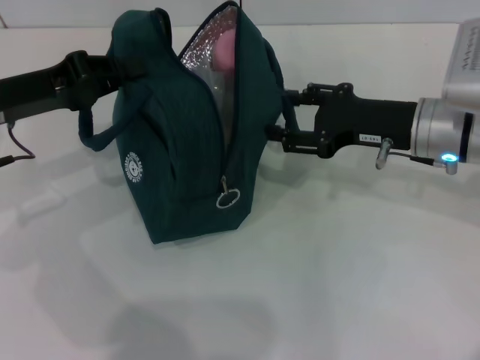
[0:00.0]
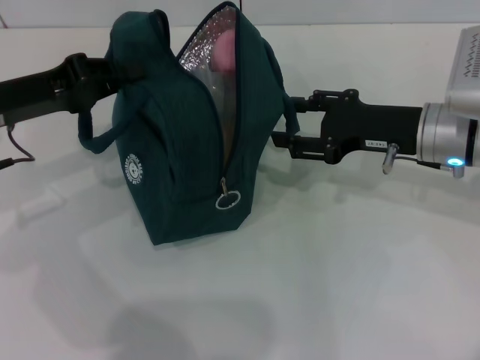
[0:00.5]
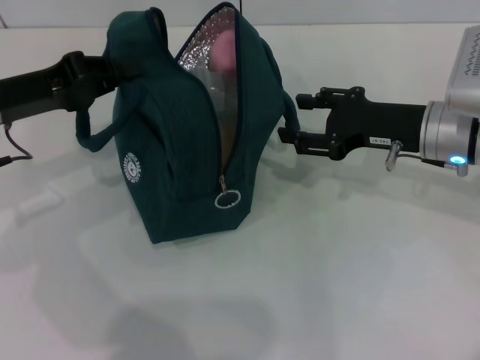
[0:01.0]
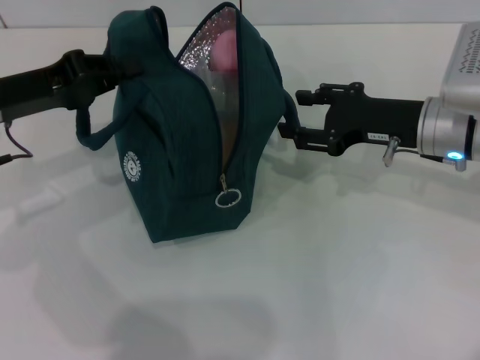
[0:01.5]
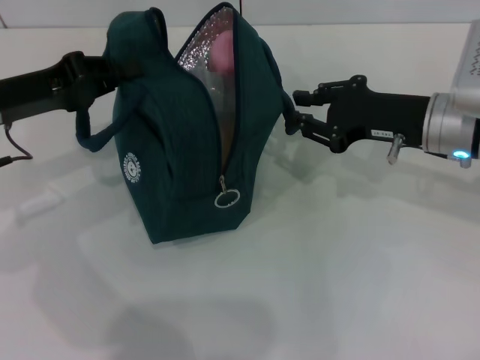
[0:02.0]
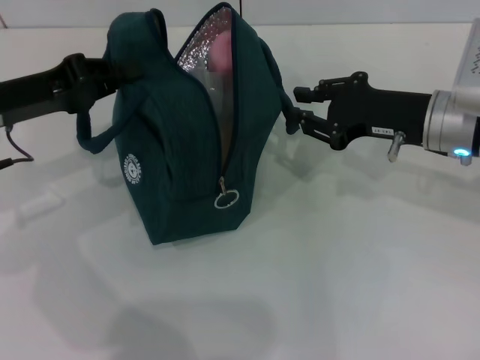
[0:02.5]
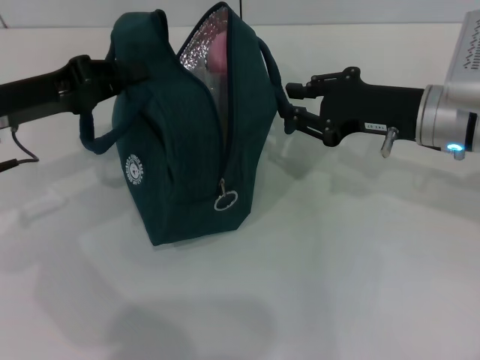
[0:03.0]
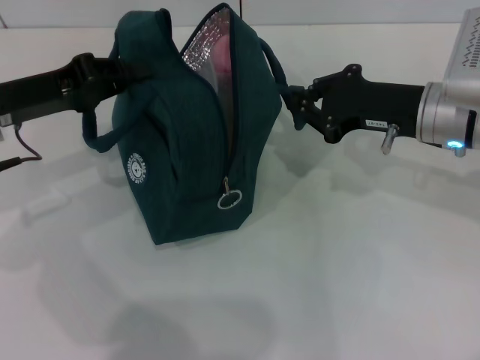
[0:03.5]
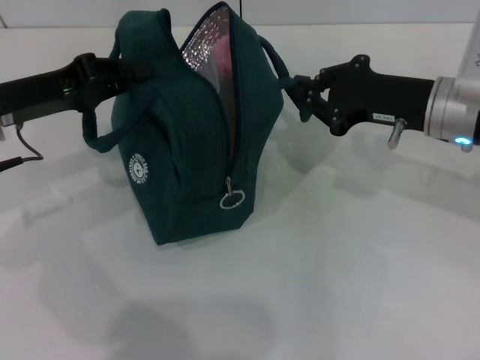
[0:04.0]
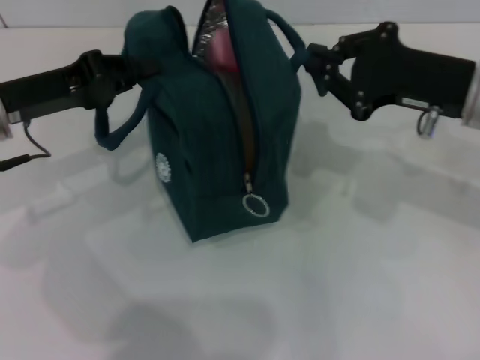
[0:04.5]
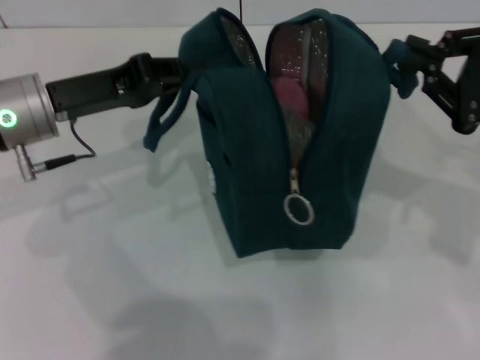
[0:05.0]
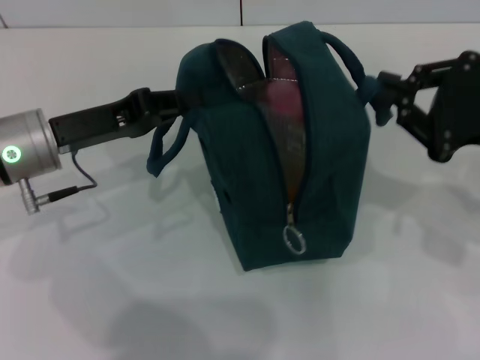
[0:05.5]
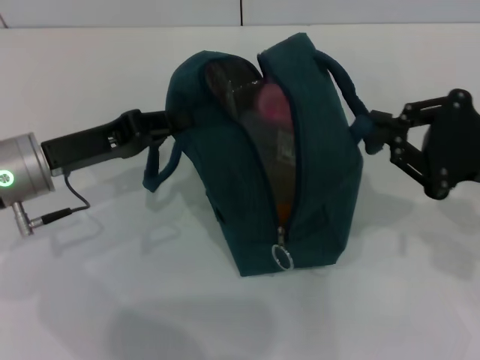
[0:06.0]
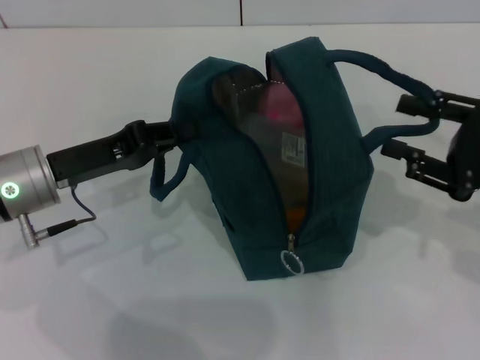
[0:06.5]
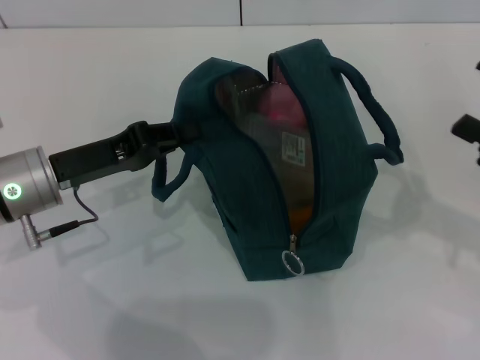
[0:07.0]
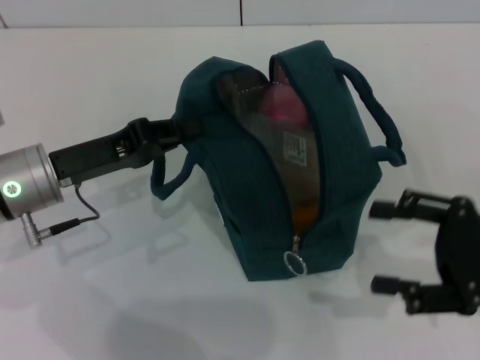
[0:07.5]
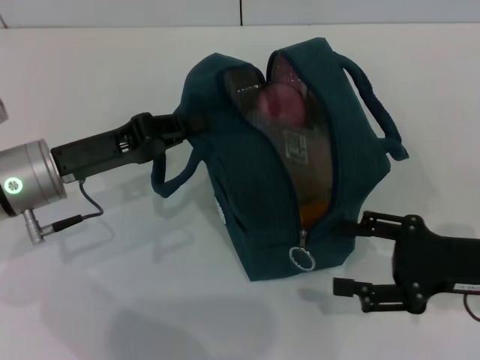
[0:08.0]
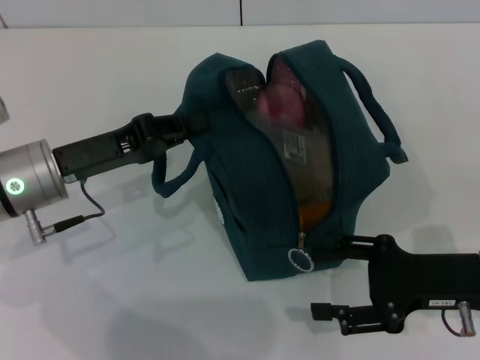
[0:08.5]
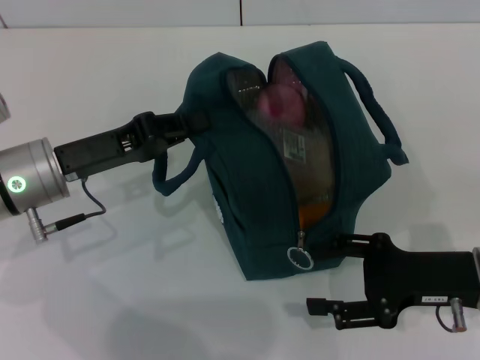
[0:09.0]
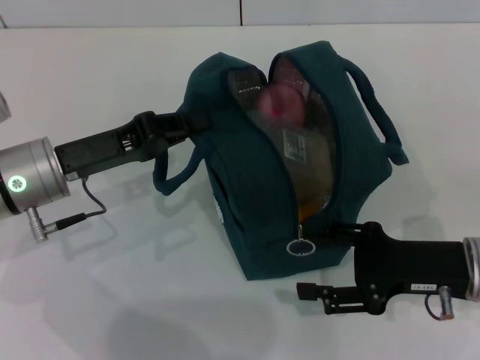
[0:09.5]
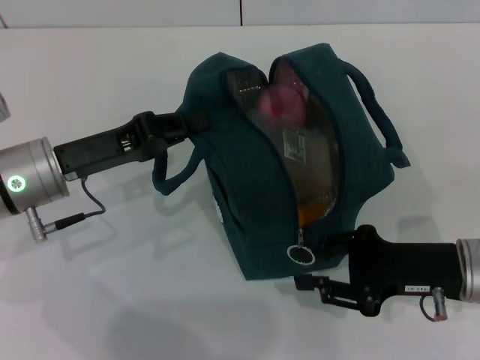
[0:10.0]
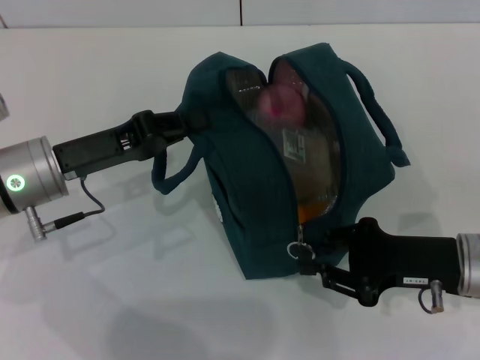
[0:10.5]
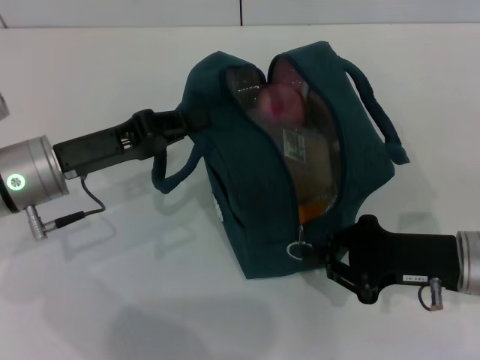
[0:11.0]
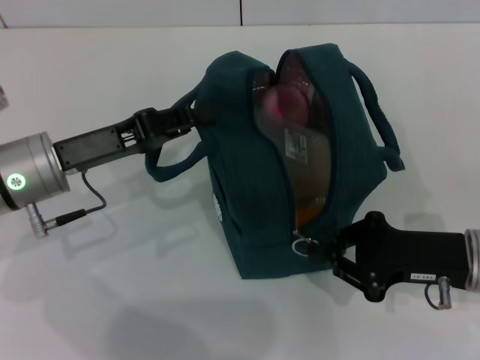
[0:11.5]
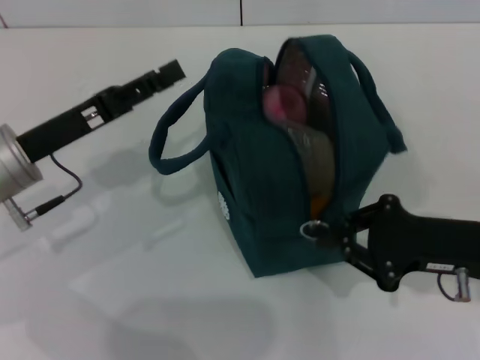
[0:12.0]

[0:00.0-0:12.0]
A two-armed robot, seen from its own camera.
Step, 0:00.0 to 0:06.5: Hold the lunch bag with your right hand.
0:00.0 to 0:02.0: The grippers stay close to where they were, moving slightly.
0:02.0 to 0:04.0: The right gripper closes up.
0:04.0 to 0:06.0: The left gripper changes place by roughly 5 cm, while the right gripper goes about 10 cm backward and to the right.
0:06.0 to 0:08.0: The right gripper moves downward, some 5 cm, and opens up.
0:08.0 to 0:10.0: The grippers stay close to where they were, moving slightly.
0:10.0 to 0:12.0: The right gripper closes up. The left gripper opens.

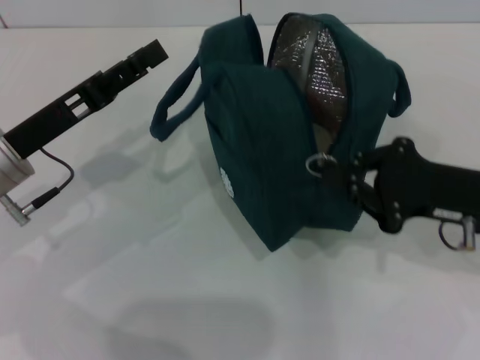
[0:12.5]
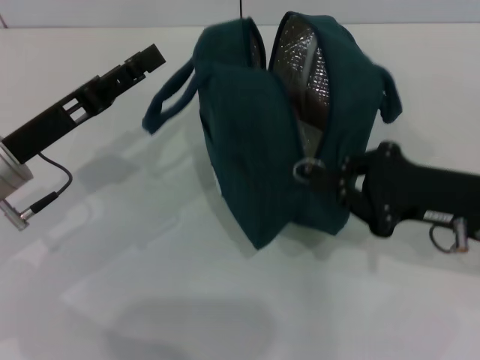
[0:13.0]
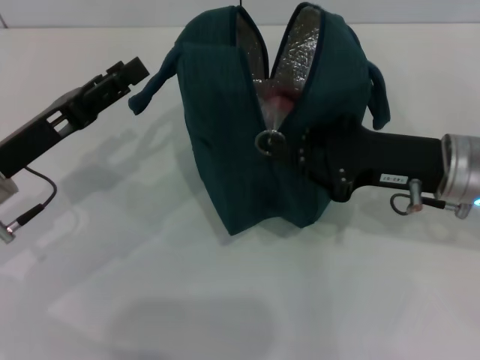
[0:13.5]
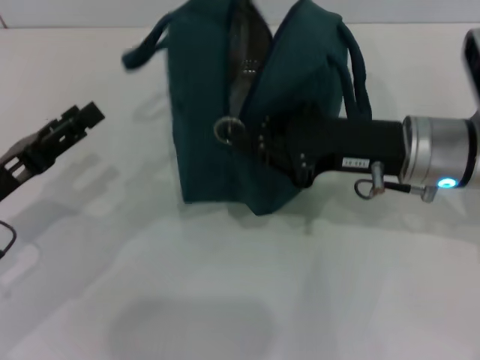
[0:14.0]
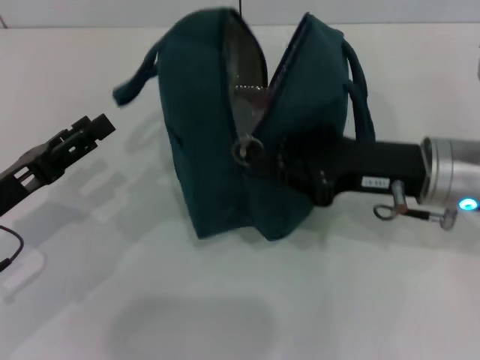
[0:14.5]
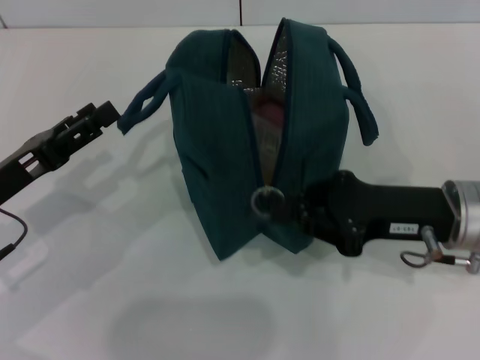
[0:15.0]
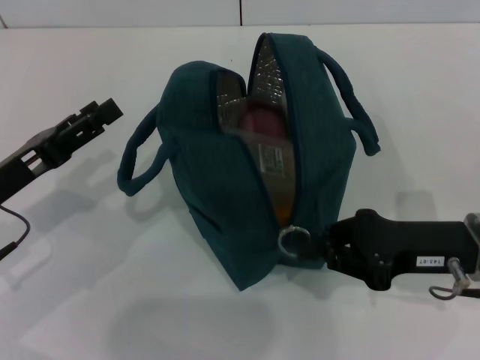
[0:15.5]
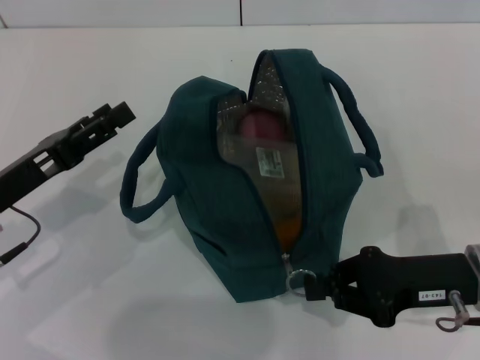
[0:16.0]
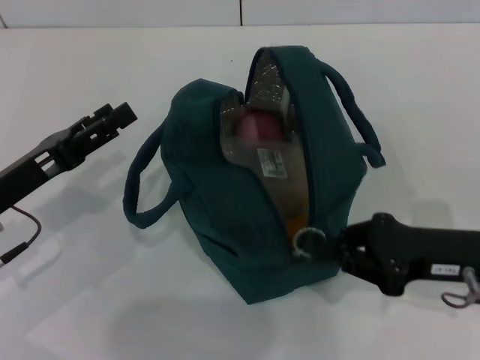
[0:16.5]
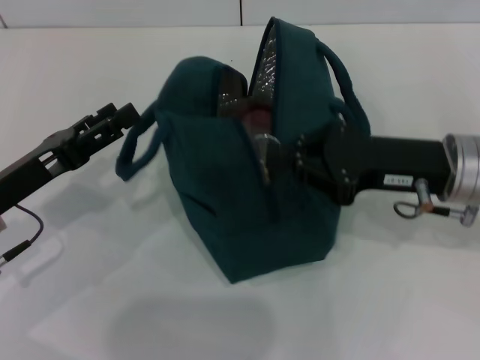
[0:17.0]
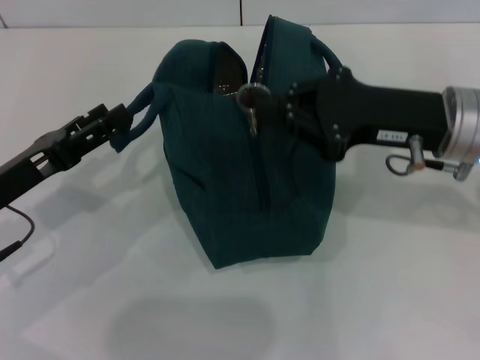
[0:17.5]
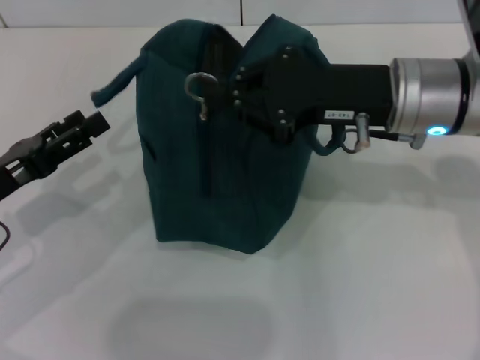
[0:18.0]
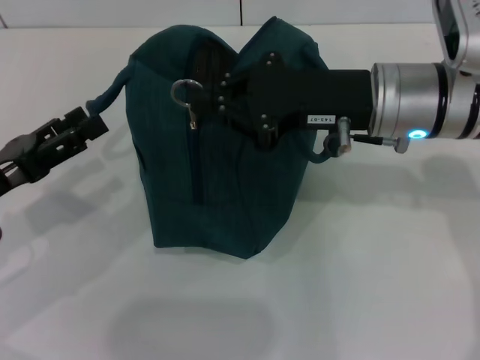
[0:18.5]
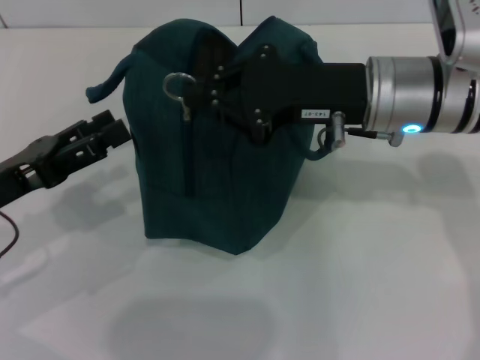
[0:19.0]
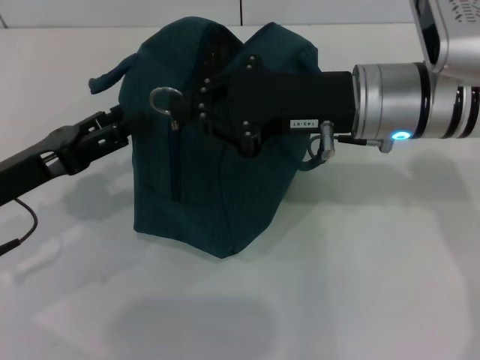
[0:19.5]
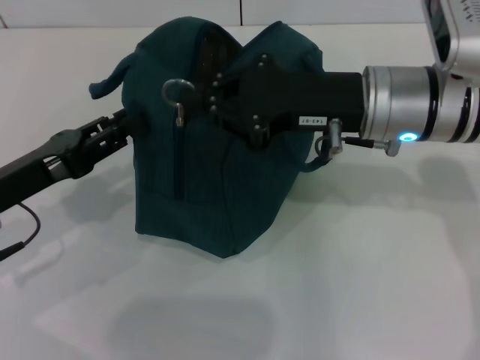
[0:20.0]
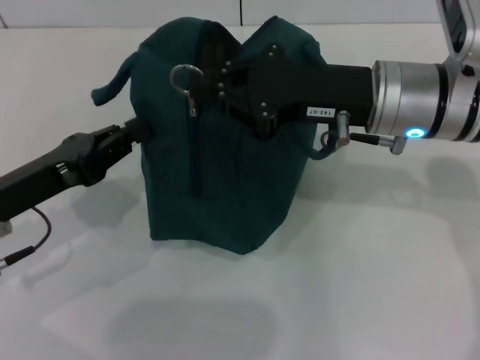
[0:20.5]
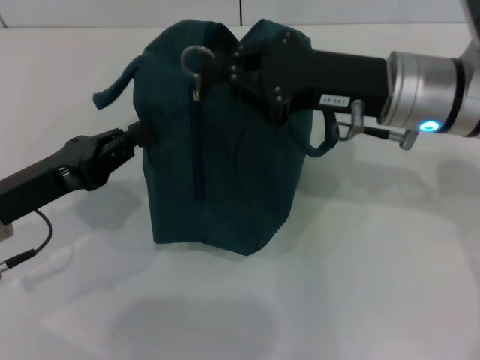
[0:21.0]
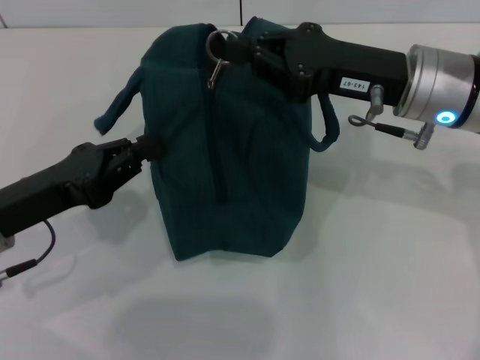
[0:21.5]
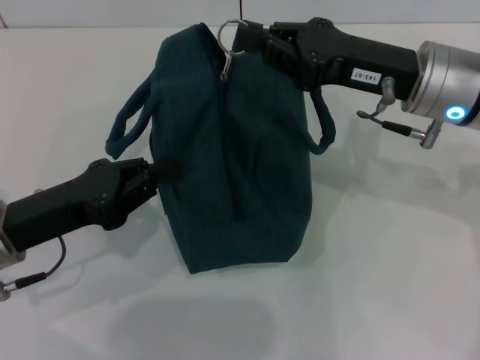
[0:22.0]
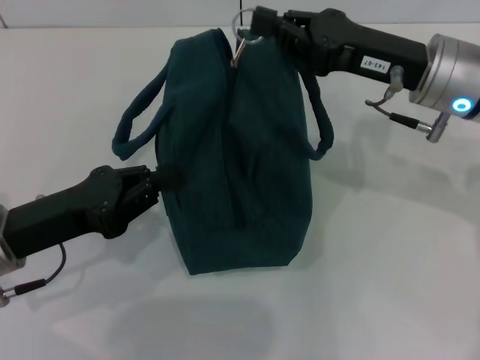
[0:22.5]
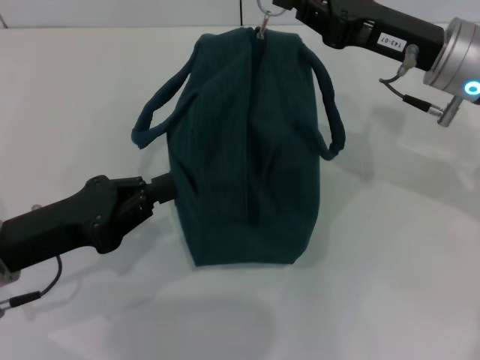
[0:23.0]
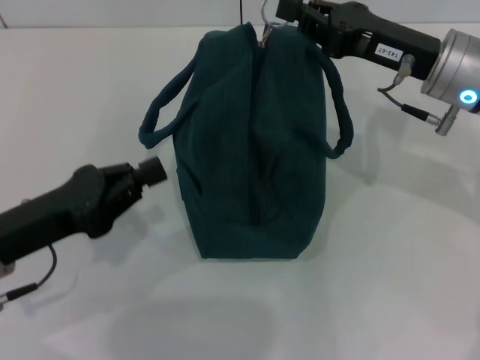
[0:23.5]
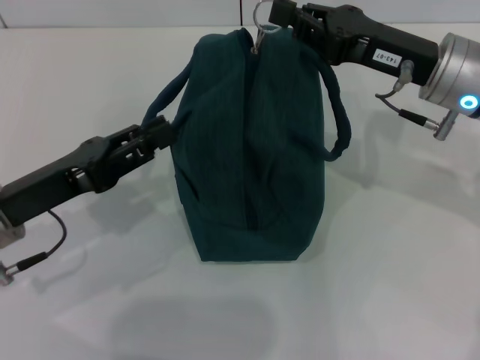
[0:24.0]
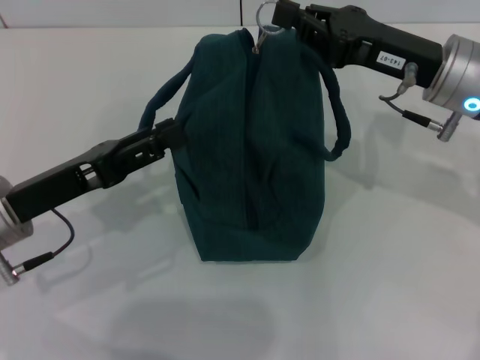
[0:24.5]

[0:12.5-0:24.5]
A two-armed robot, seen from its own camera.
0:12.5 to 0:14.5: The left gripper is displaced backward by about 5 cm; the right gripper heads to the left, covering approximately 5 cm.
0:14.5 to 0:16.5: The right gripper moves to the right and backward, approximately 10 cm.
0:16.5 to 0:18.5: The right gripper goes roughly 15 cm to the left, upward and forward.
0:18.5 to 0:20.5: The left gripper closes.
0:22.5 to 0:24.5: The left gripper opens.

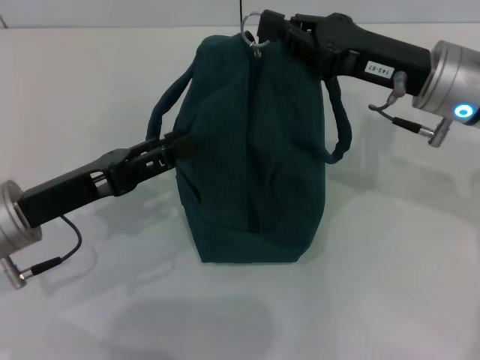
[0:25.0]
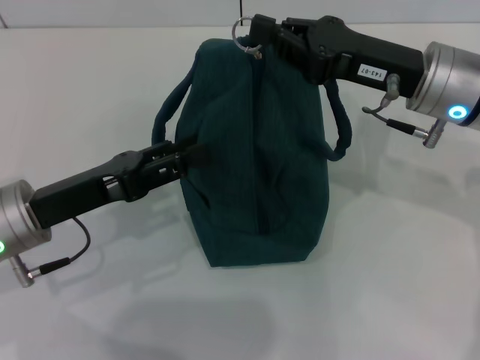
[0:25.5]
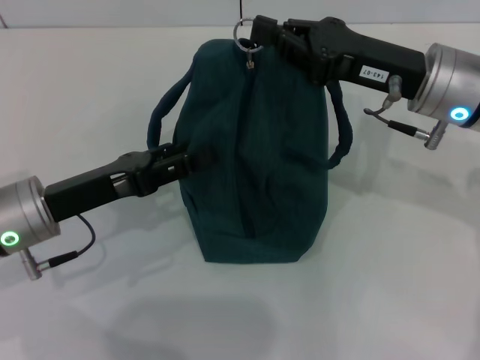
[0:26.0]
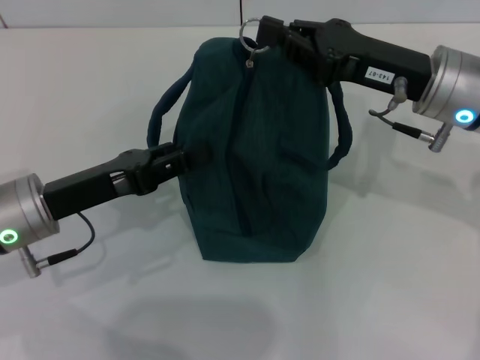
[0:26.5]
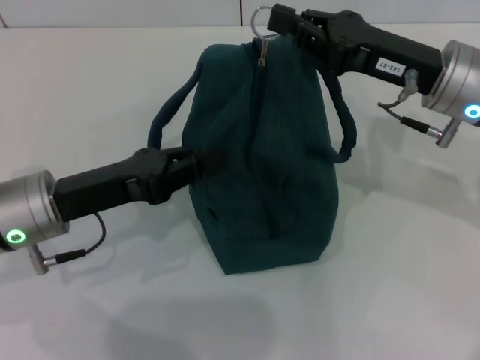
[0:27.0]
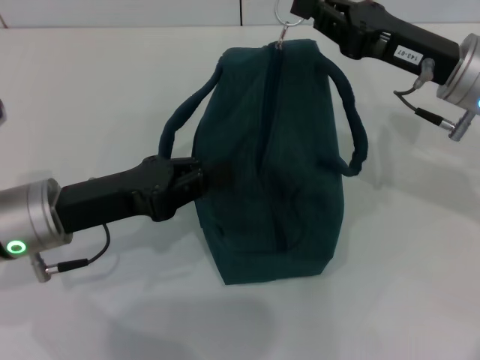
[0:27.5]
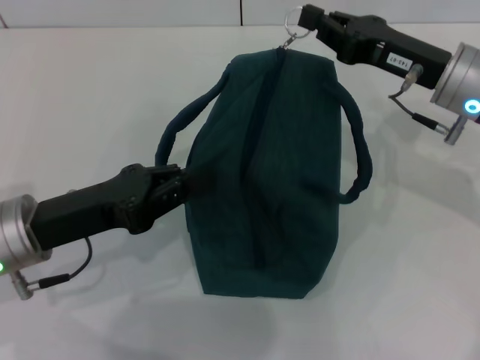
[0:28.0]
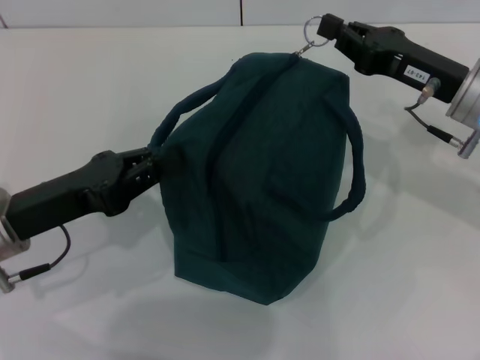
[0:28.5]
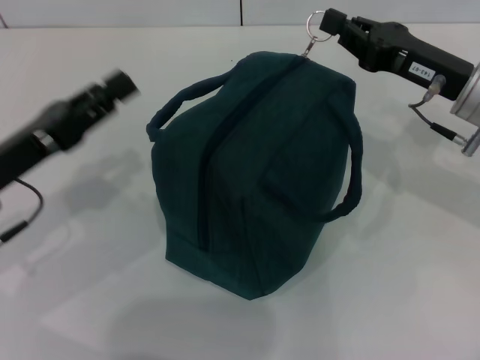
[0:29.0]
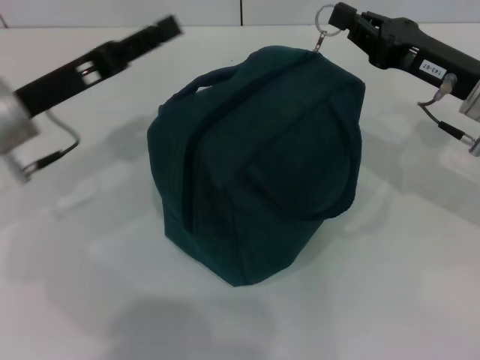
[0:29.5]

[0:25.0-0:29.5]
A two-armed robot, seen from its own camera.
0:25.0 to 0:27.0: The left gripper closes.
0:27.0 to 0:29.5: The left gripper is displaced forward by roughly 5 cm, and opens.
